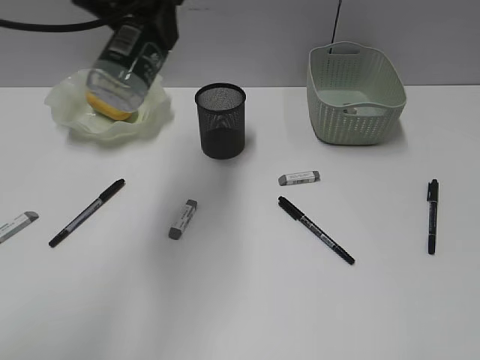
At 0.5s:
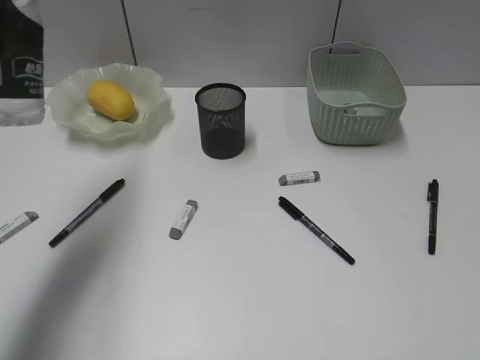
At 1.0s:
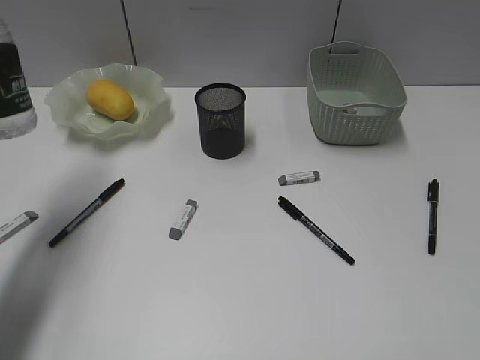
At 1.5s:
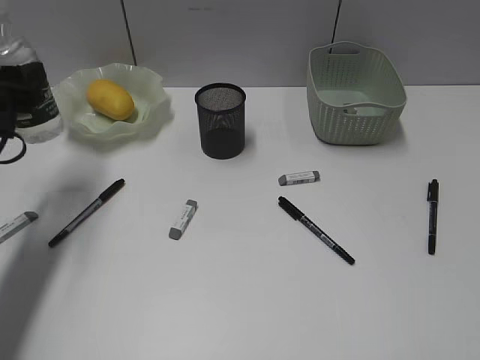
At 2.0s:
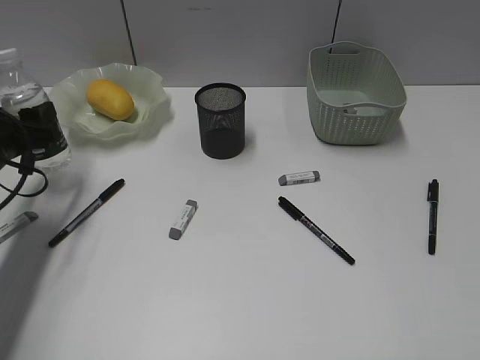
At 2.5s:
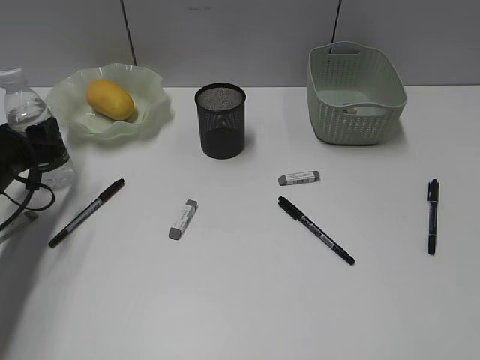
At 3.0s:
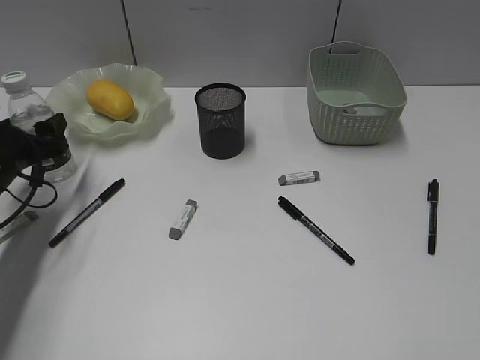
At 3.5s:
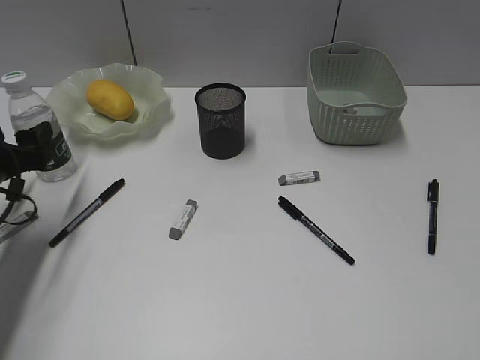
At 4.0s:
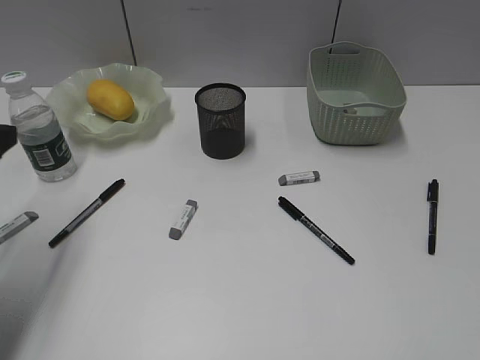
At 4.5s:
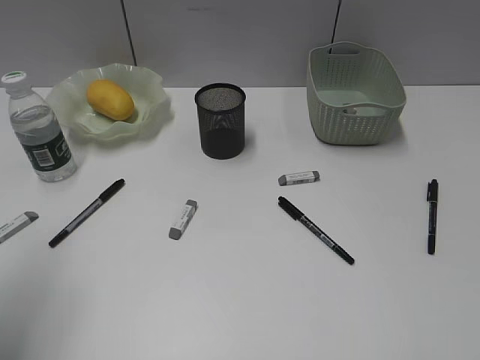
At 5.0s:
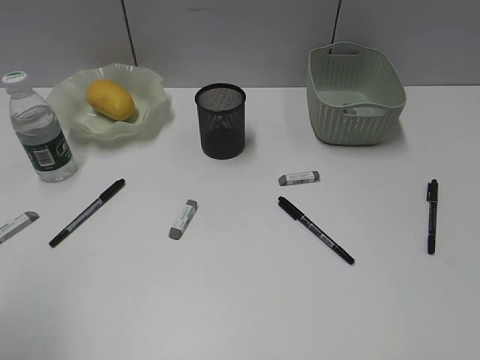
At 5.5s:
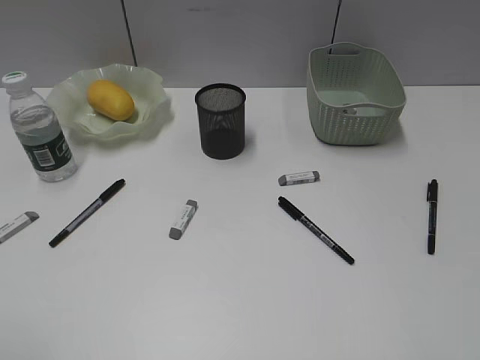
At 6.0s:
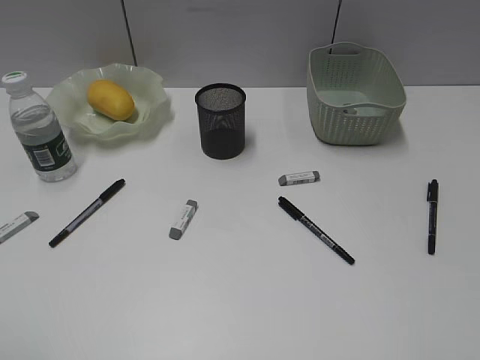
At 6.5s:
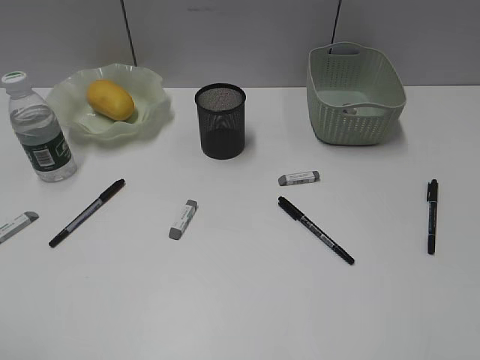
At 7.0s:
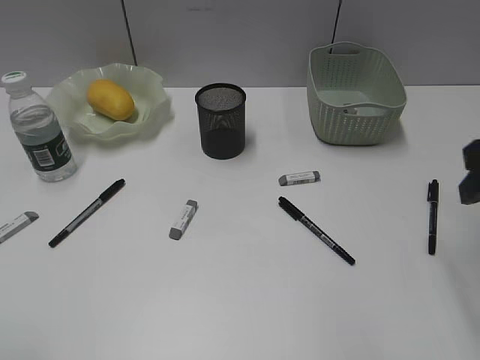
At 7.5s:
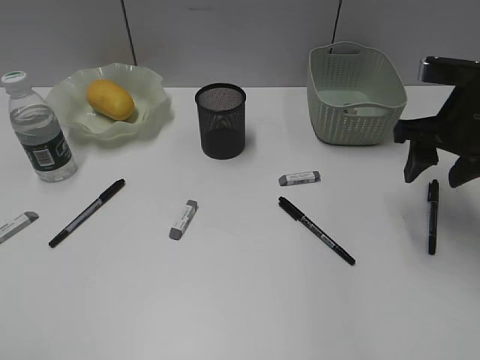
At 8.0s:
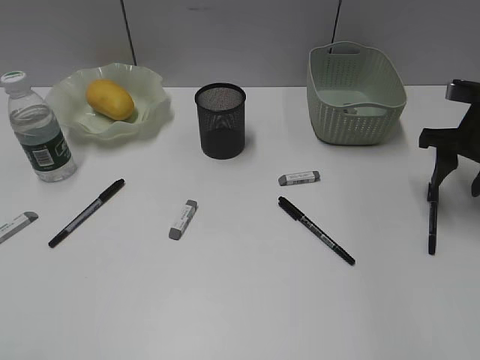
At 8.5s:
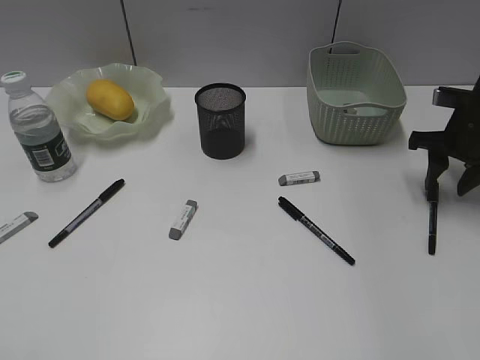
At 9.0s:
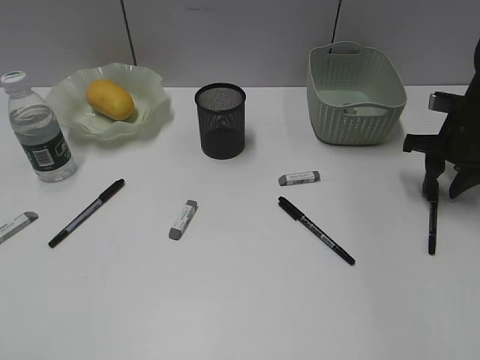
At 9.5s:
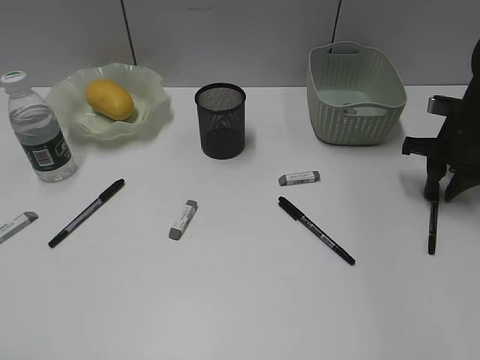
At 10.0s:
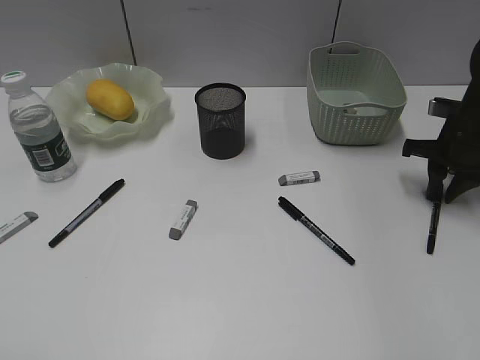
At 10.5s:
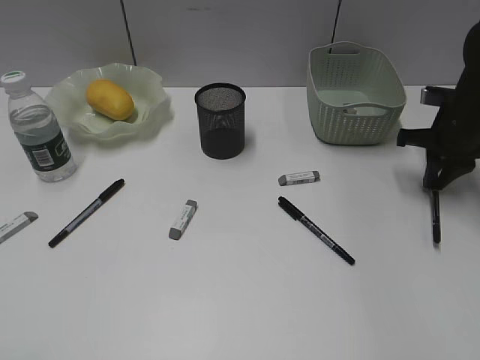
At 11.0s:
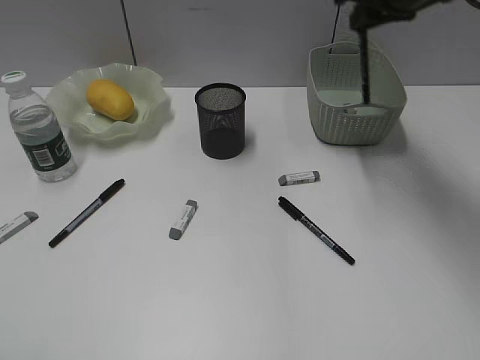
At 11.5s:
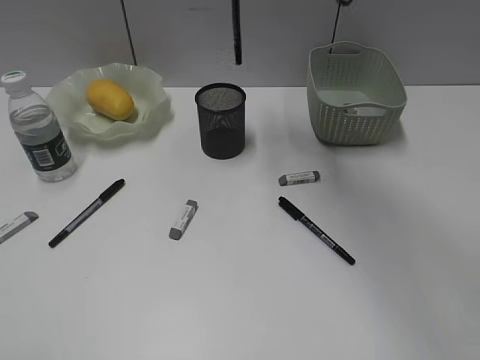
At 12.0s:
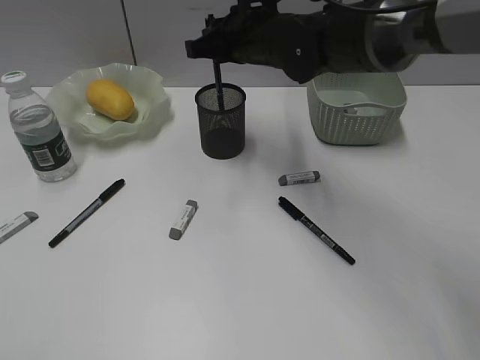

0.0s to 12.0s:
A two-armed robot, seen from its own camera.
Step, 0.0s to 3.5s: Stand the bottle with left gripper.
Step, 4.0s to 10.0s: Grasp the black pen with right gripper.
0.0s to 2.0s: The left gripper goes about 30 cm downward and to the left.
2.0s to 4.0s: The left gripper heads backward and upward, covering about 15 cm.
4.0s to 6.0s: The left gripper travels backward by some 20 cm.
6.0s to 8.0s: The right gripper goes about 35 cm forward.
8.0s to 10.0s: The right gripper changes place by approximately 5 cm, and closes its fingers.
10.0s to 12.0s: The right gripper shifts approximately 30 cm to the left.

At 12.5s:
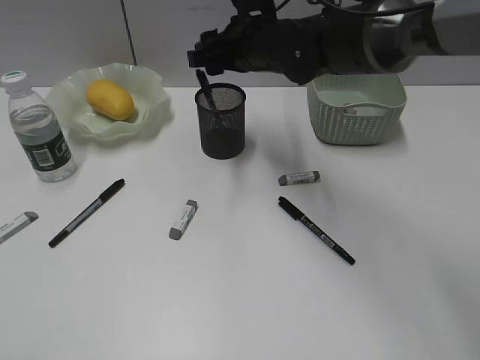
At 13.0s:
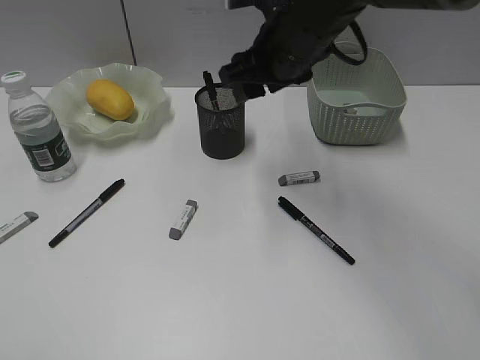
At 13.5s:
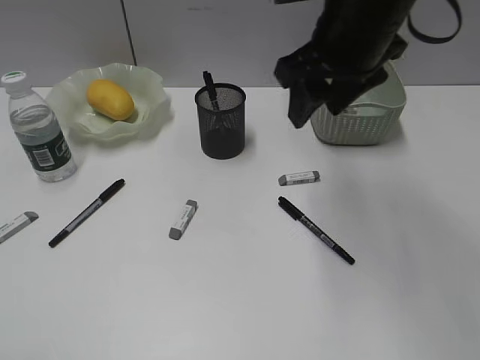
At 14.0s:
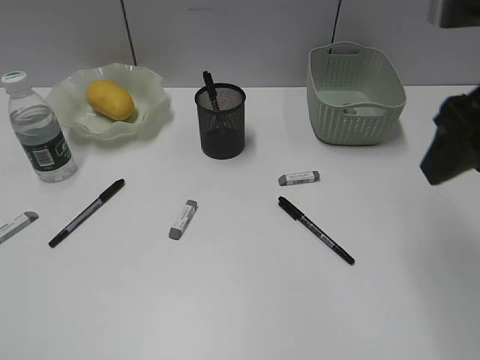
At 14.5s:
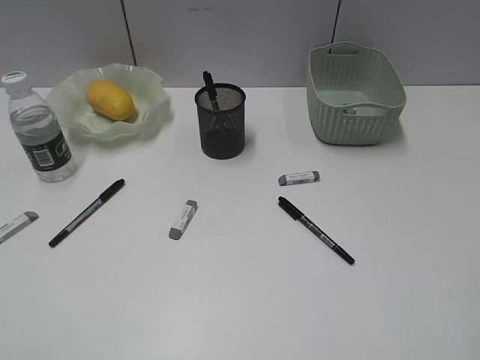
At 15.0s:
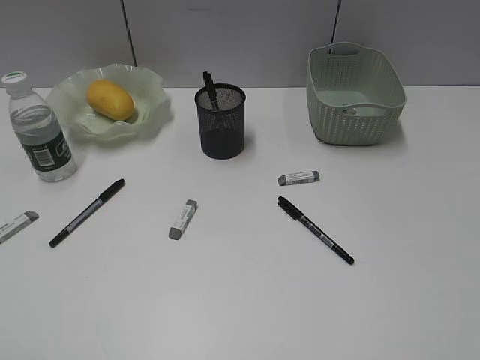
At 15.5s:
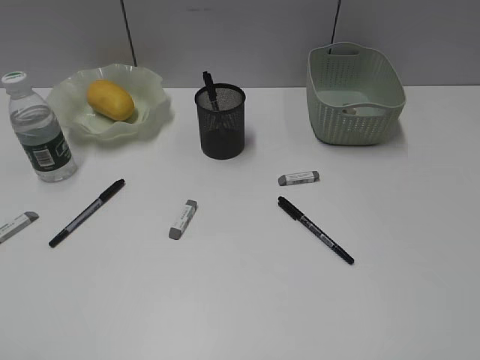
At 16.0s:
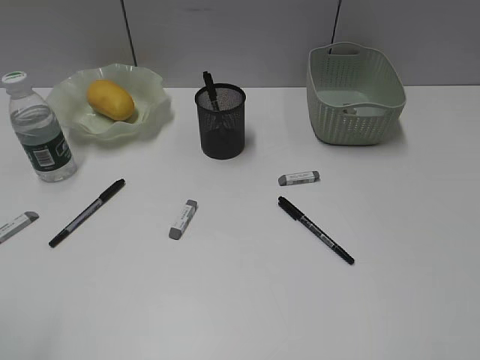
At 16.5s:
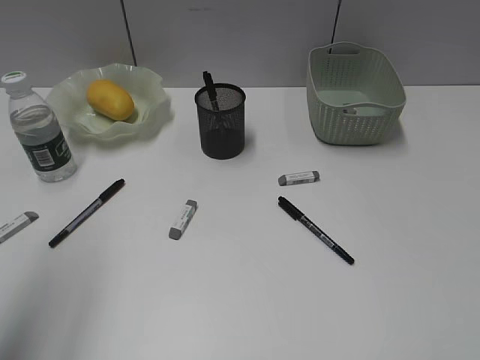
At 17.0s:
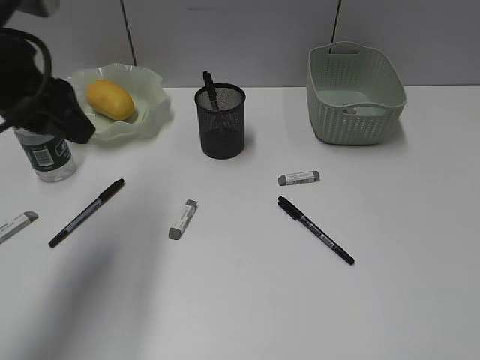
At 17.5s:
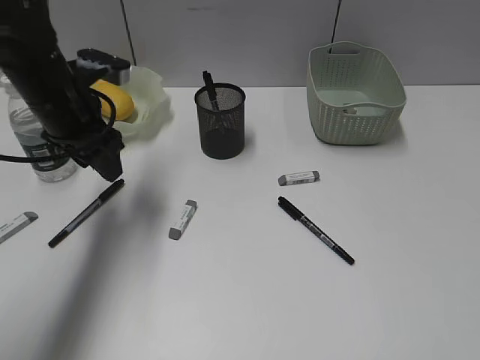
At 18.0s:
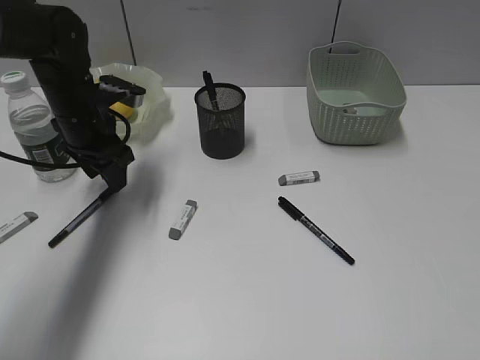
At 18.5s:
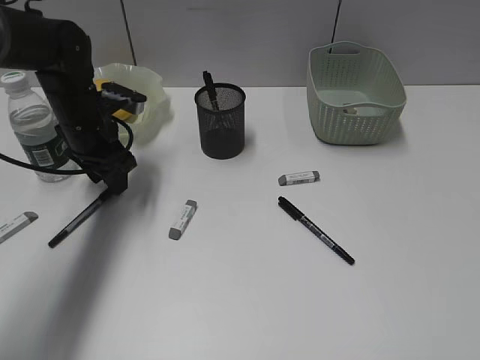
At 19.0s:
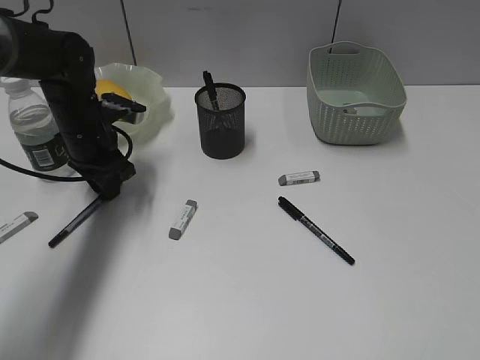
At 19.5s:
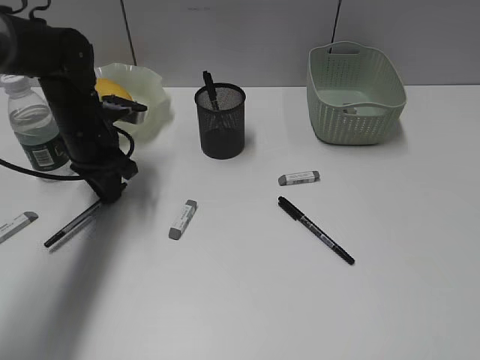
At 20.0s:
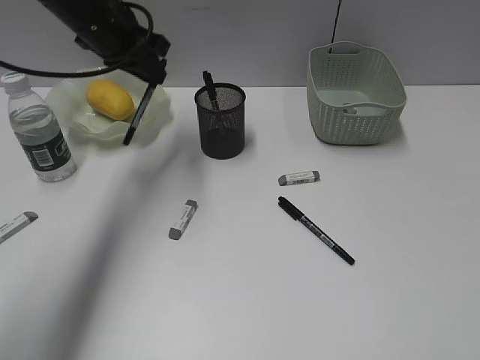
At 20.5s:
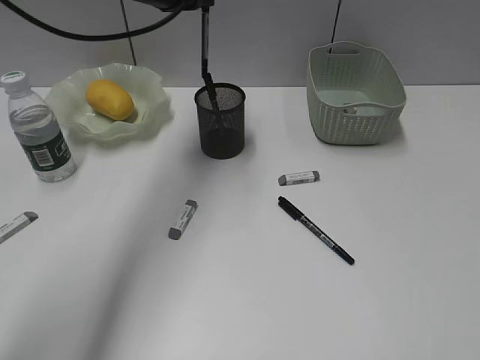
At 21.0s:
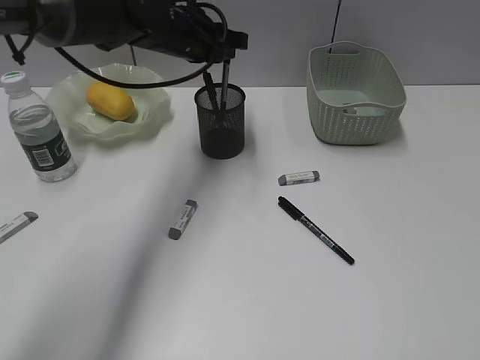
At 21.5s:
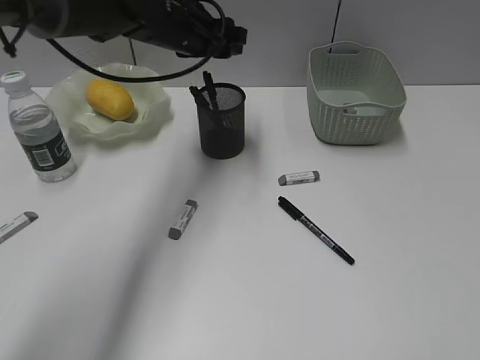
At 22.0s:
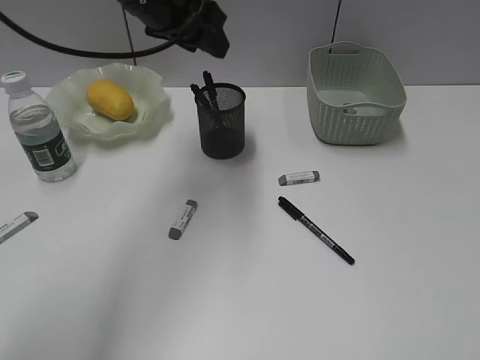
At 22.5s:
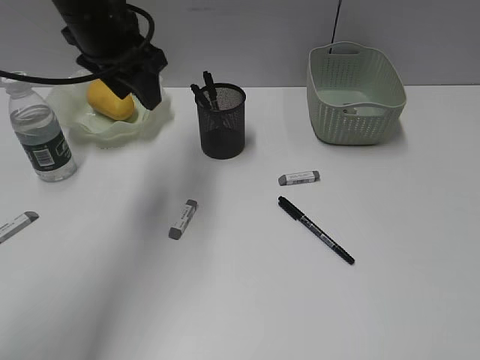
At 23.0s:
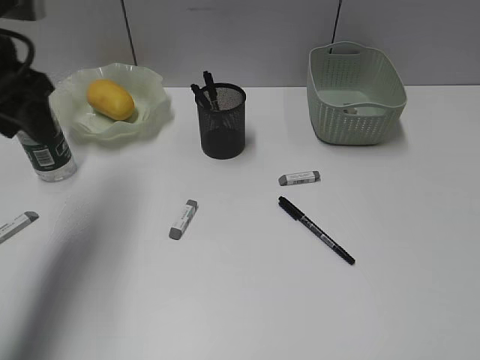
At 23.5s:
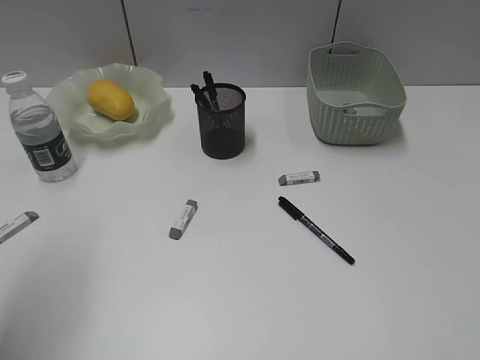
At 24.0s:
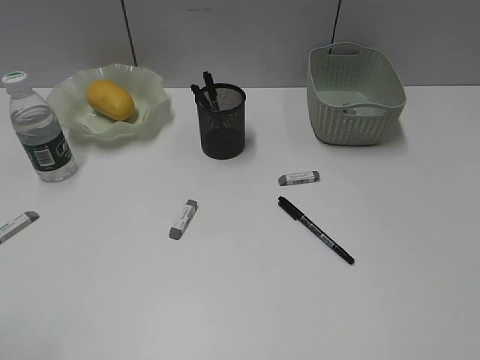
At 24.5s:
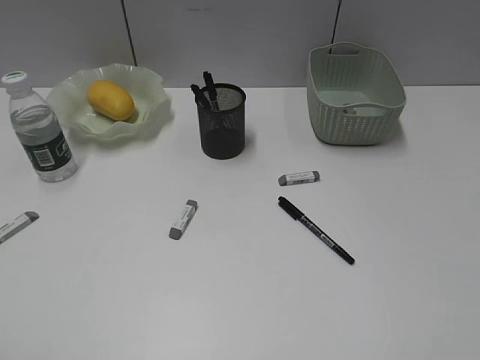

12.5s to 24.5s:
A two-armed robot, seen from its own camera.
Step, 13.0s to 19.0s: Grasp the black pen with left gripper.
Step, 19.5s to 21.0s: Place the black pen in pen holder with left gripper.
12.5s to 14.5s: The right gripper goes some 40 cm backward and to the right.
14.5s to 16.5s: The left gripper moves forward, approximately 15 cm.
16.5s to 18.5s: The left gripper is displaced forward and downward by roughly 30 cm.
18.5s to 20.5s: The left gripper heads upward and to the right, covering approximately 20 cm, and closes its fingers.
20.5s to 22.5s: The left gripper goes approximately 5 cm backward, reaches some 5 cm downward, then returns, and opens its fingers.
22.5s to 24.5s: The left gripper travels backward and to the left by some 40 cm.

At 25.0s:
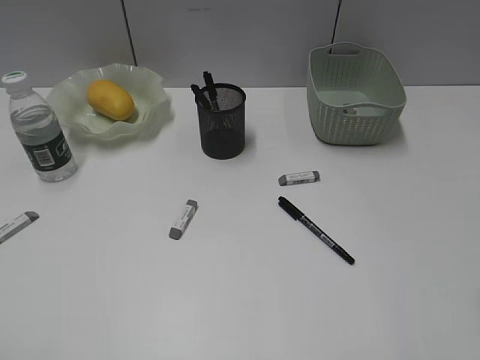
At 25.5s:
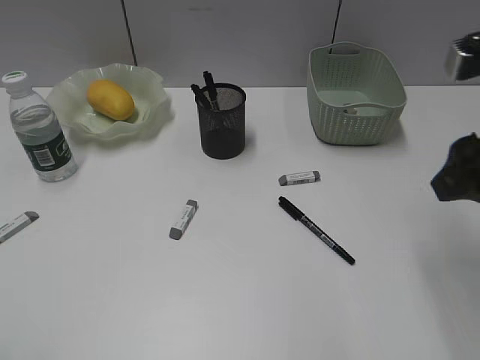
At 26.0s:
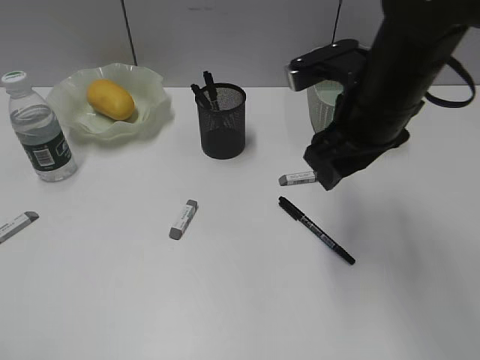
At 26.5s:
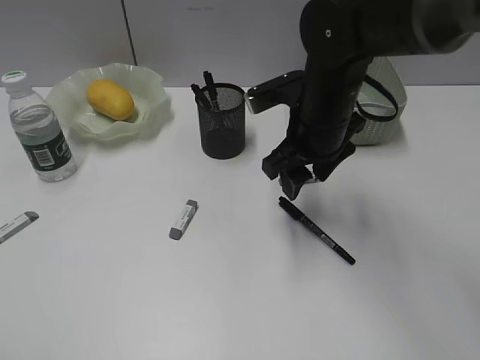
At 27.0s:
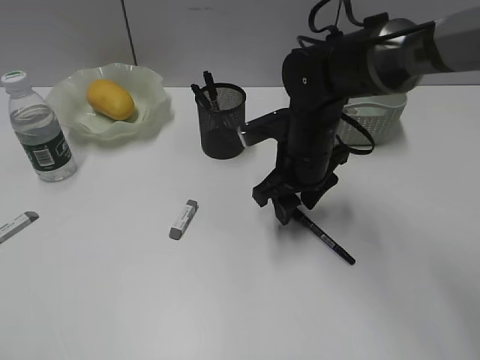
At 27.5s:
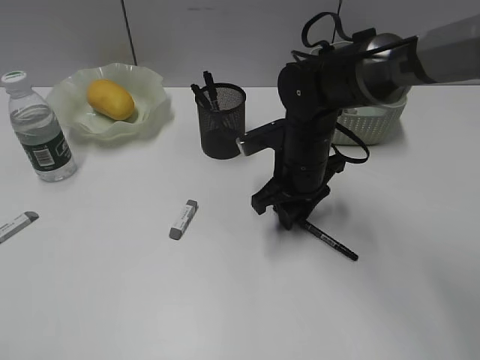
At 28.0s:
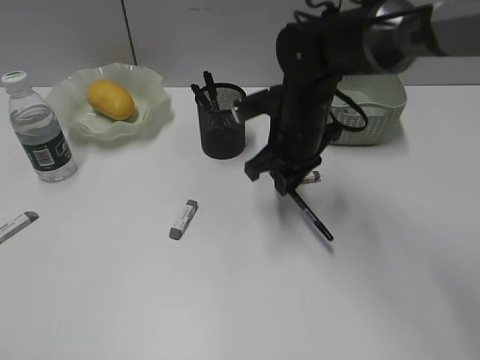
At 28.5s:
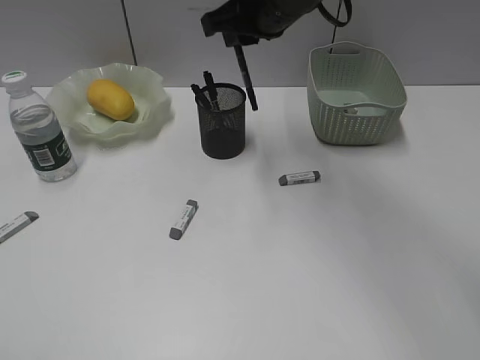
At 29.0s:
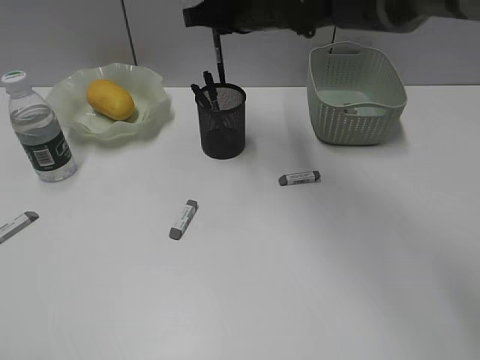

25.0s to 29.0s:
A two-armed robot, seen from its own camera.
Step, 25.0s to 27.5s: Grasp the black pen with right gripper.
25.0s to 27.0s: The right gripper moves forward, to the left and downward, some 35 cm.
27.0s to 29.0s: The right gripper goes approximately 15 cm upward, forward and to the left, and closes its fingers.
